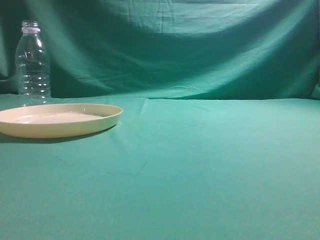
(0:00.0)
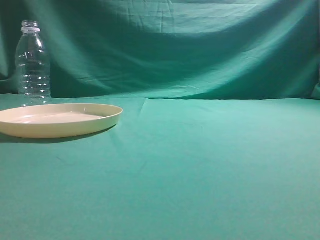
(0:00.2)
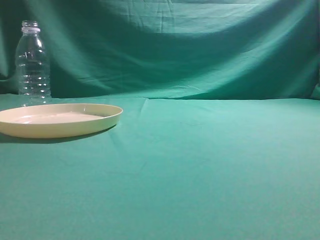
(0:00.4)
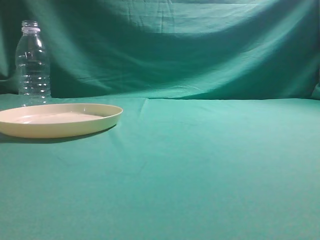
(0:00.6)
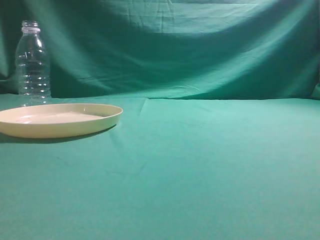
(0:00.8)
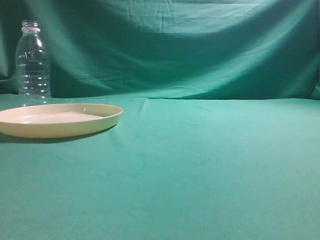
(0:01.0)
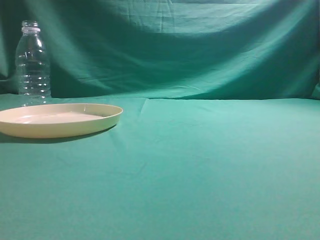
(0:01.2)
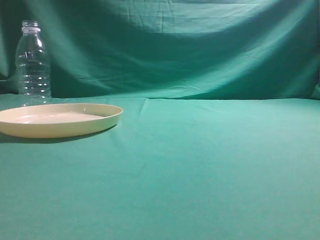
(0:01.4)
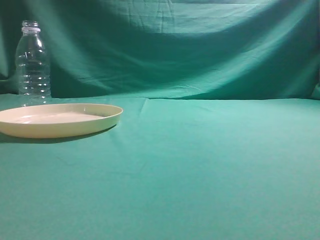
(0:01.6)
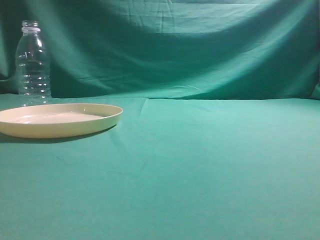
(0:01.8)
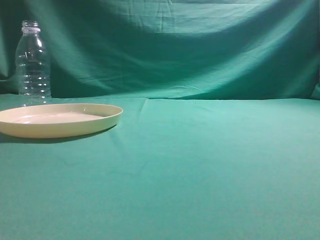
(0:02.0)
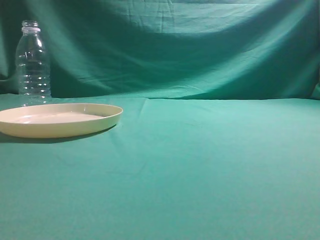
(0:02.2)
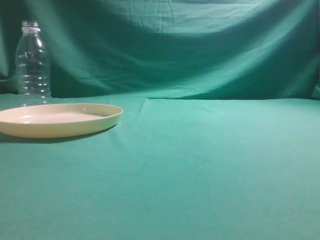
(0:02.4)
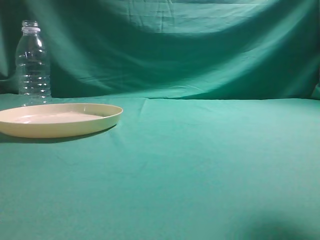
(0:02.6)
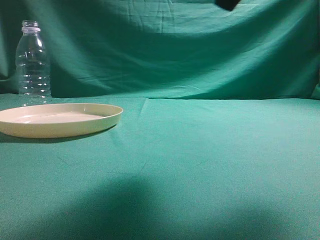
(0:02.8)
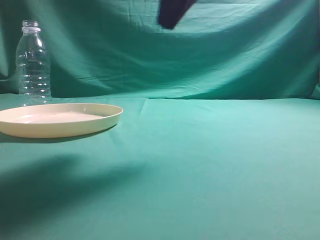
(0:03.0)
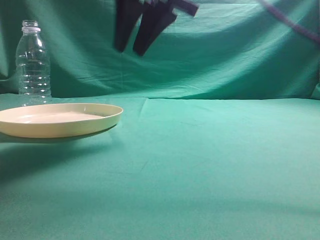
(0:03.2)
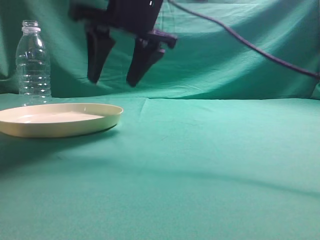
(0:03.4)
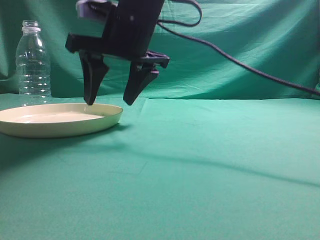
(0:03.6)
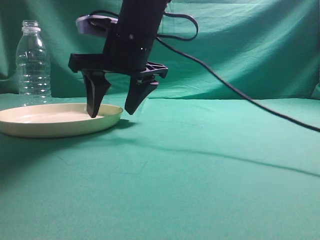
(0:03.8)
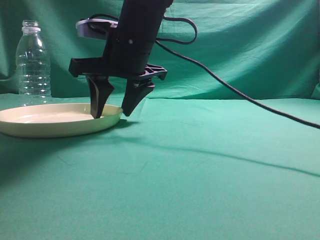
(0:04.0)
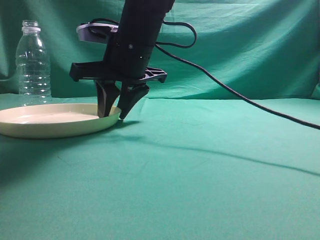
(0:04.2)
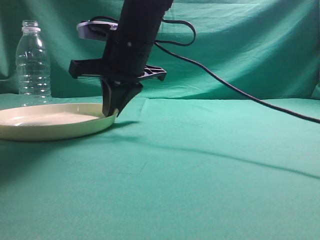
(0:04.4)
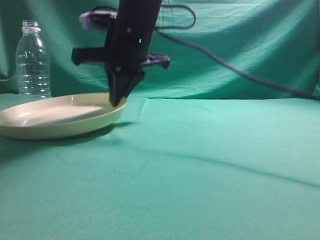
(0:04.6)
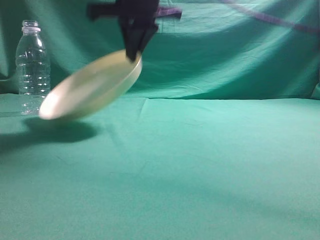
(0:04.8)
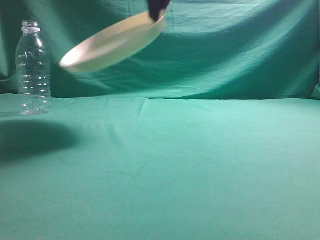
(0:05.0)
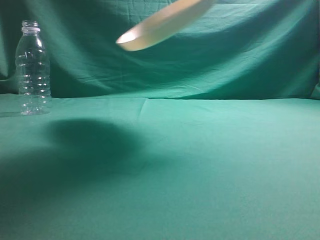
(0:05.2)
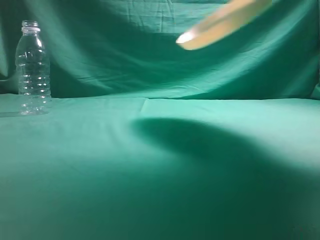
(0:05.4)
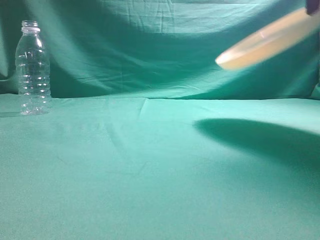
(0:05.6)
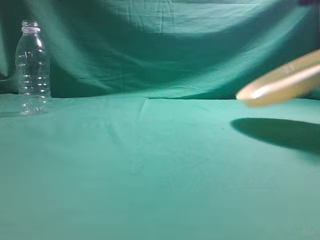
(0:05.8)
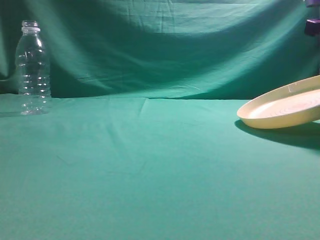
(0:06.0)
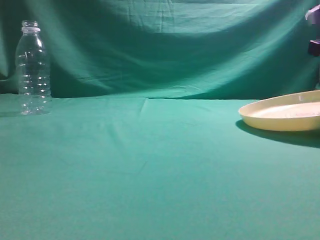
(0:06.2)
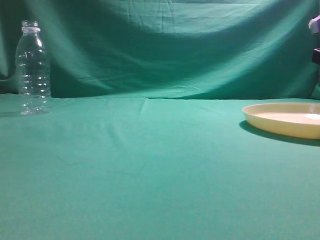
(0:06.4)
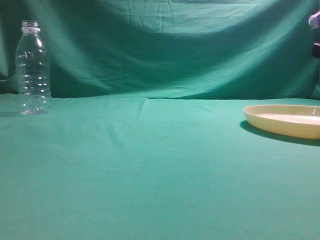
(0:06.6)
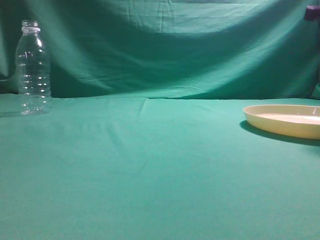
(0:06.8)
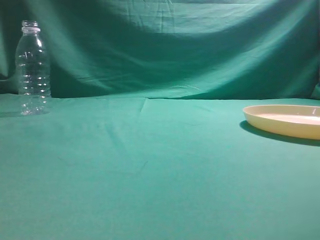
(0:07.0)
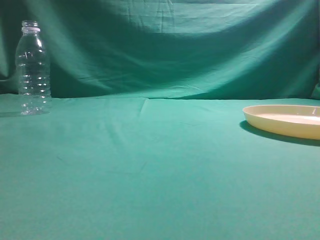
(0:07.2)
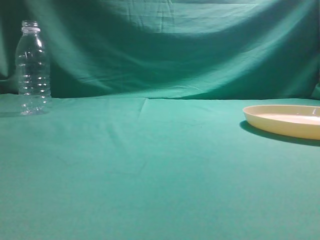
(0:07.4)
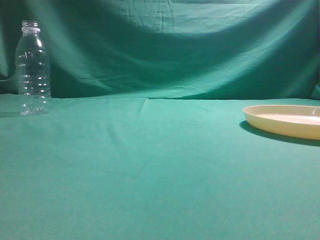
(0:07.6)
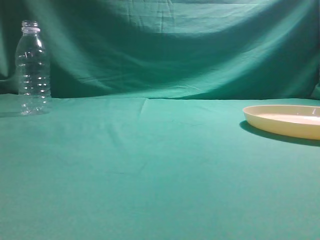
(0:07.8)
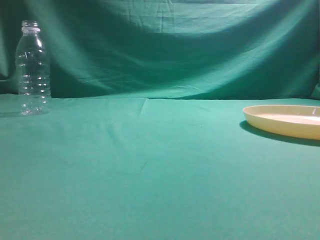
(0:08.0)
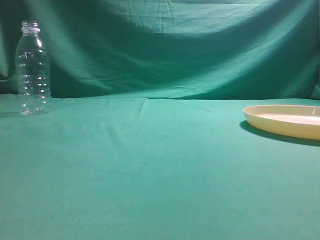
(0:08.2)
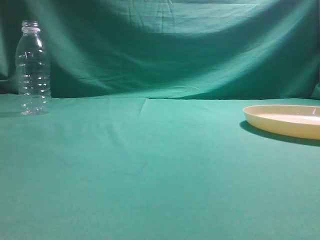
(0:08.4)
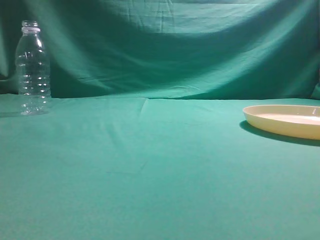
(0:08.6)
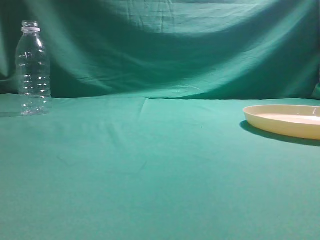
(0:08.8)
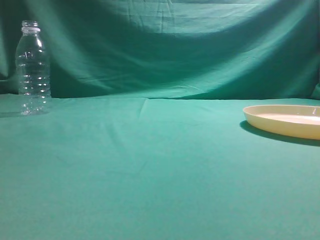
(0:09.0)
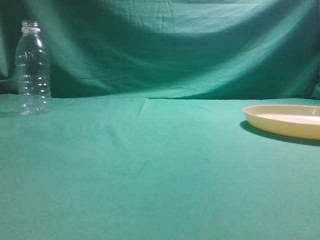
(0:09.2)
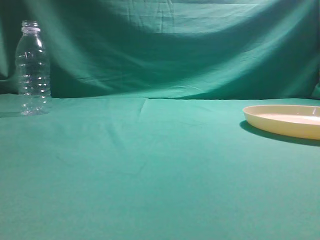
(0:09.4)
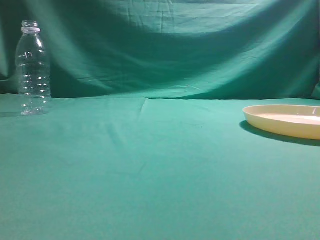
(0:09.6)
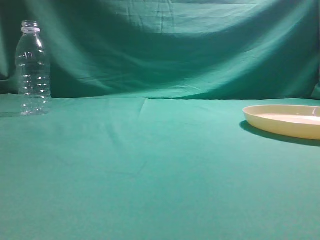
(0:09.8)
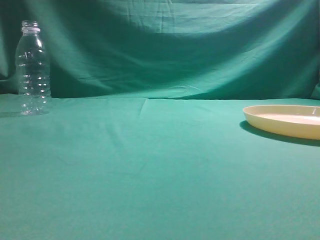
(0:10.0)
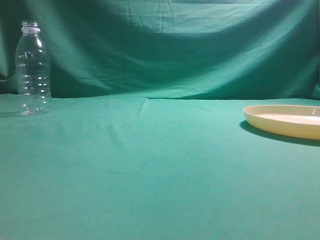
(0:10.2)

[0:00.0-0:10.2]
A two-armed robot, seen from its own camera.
Step, 0:00.0 to 0:04.8: Pick the container that can hold fruits.
Step, 0:05.0 to 0:06.8: Move the picked object to the right side of the table.
0:01.4 to 0:03.0: The right gripper shifts some 30 cm forward and to the left.
0:03.0 to 0:04.4: The right gripper is displaced downward, to the left and forward by about 20 cm, and opens, then closes once more.
0:04.4 to 0:05.8: The right gripper goes about 35 cm to the right and upward.
0:05.8 to 0:07.2: The right gripper shifts roughly 5 cm upward, and opens and closes again.

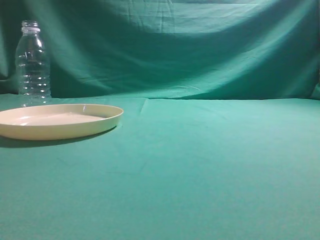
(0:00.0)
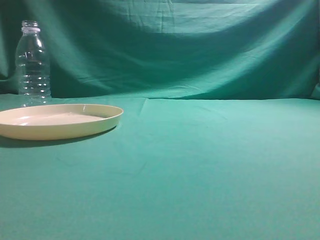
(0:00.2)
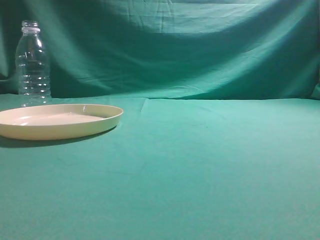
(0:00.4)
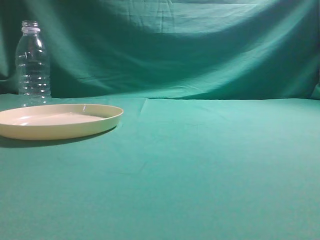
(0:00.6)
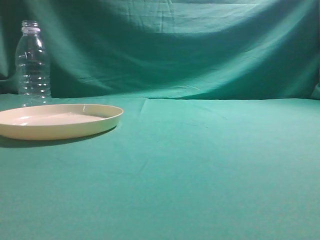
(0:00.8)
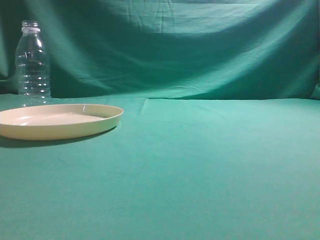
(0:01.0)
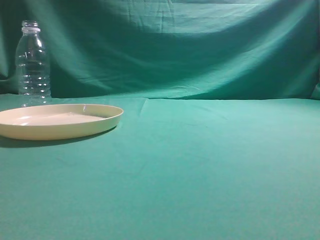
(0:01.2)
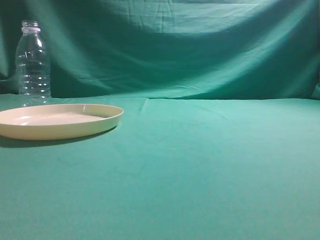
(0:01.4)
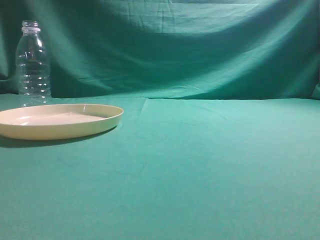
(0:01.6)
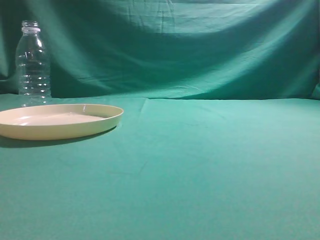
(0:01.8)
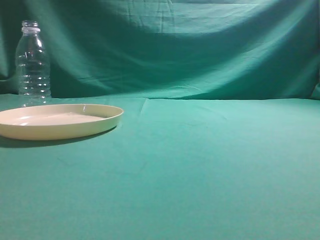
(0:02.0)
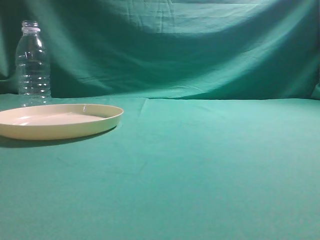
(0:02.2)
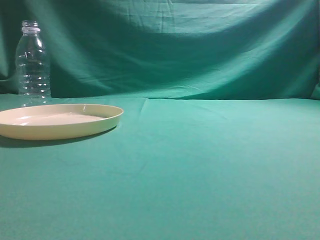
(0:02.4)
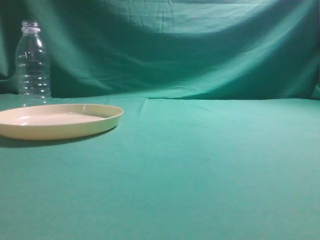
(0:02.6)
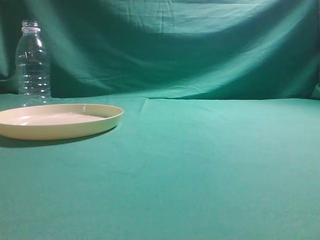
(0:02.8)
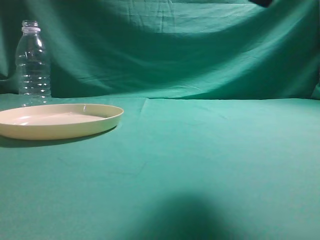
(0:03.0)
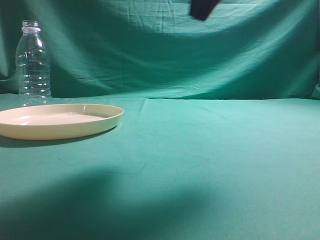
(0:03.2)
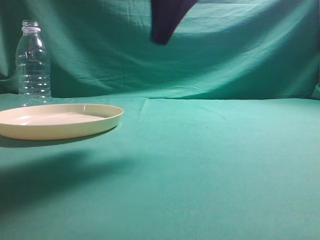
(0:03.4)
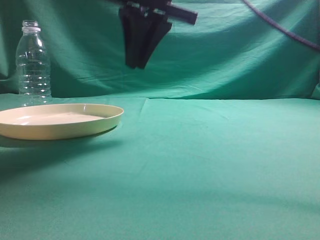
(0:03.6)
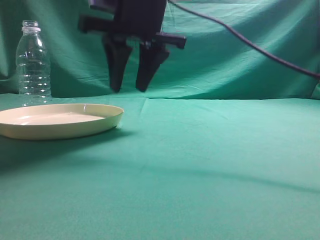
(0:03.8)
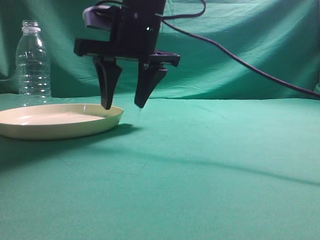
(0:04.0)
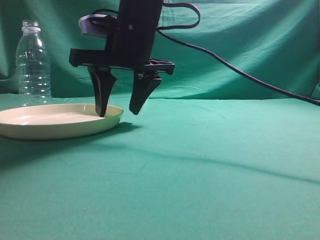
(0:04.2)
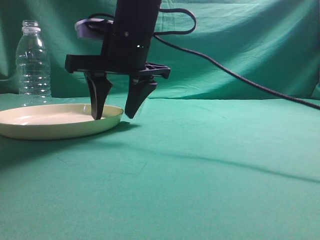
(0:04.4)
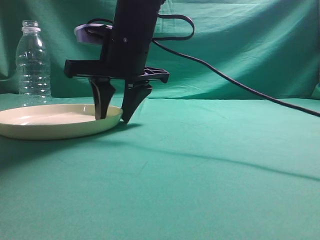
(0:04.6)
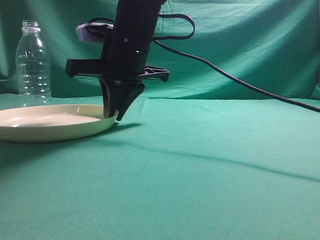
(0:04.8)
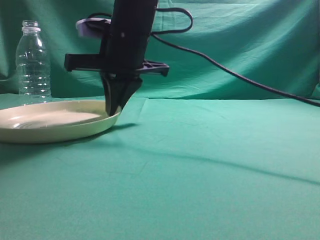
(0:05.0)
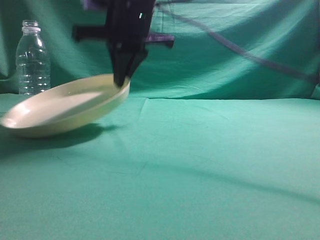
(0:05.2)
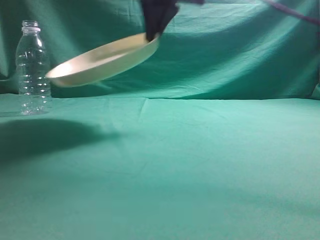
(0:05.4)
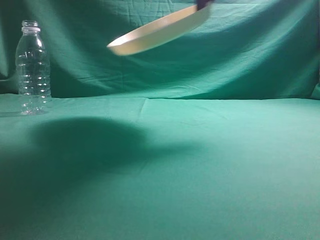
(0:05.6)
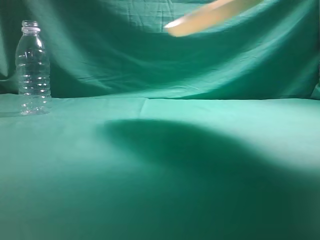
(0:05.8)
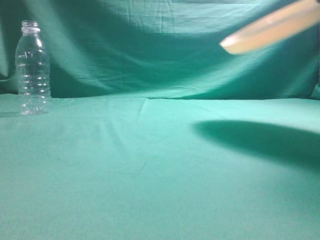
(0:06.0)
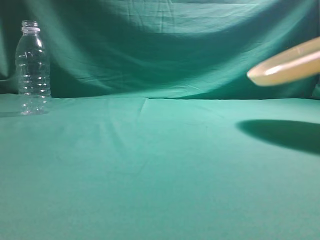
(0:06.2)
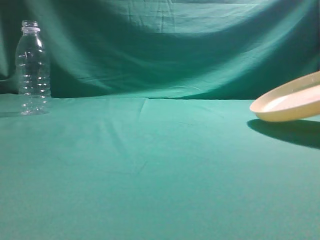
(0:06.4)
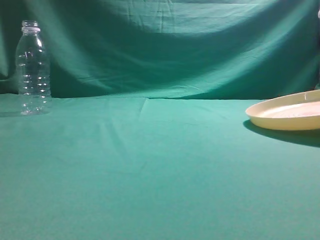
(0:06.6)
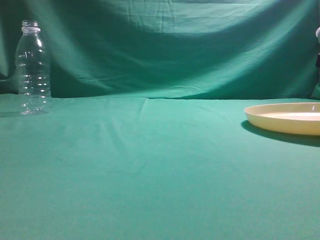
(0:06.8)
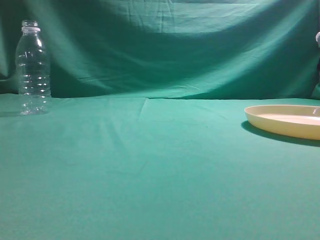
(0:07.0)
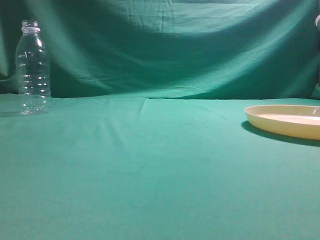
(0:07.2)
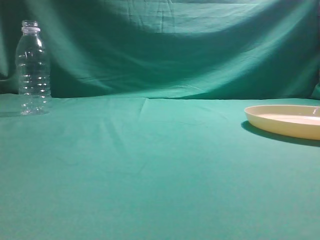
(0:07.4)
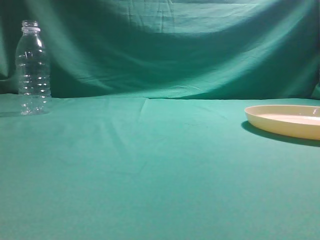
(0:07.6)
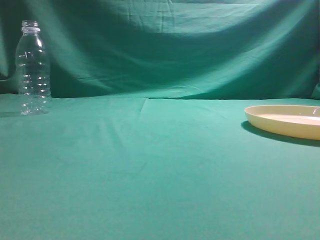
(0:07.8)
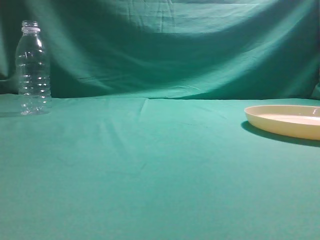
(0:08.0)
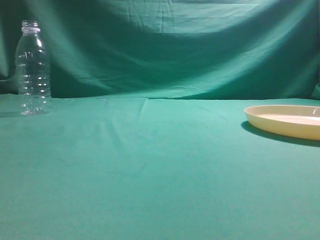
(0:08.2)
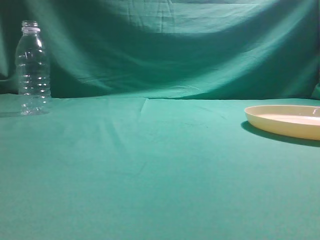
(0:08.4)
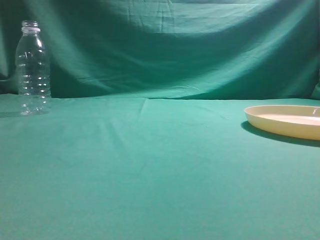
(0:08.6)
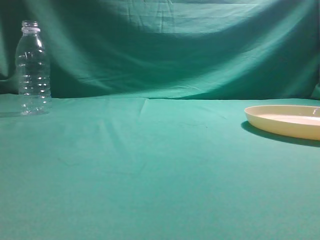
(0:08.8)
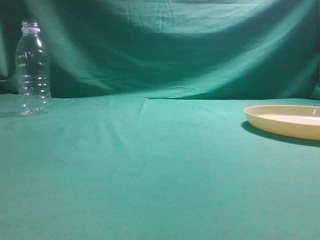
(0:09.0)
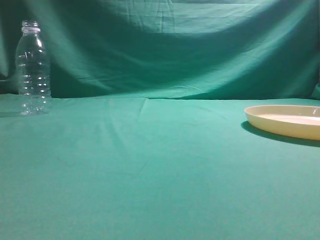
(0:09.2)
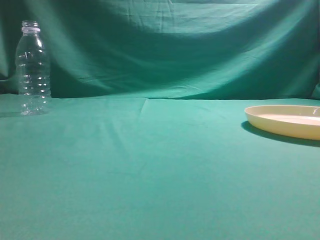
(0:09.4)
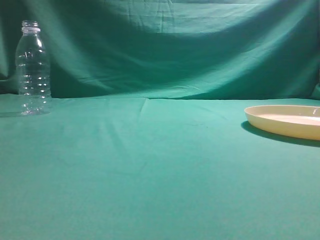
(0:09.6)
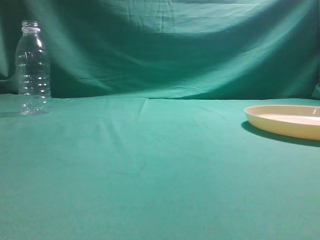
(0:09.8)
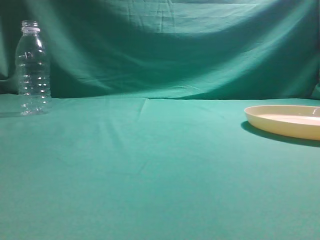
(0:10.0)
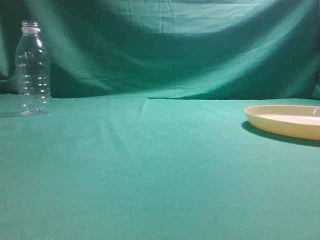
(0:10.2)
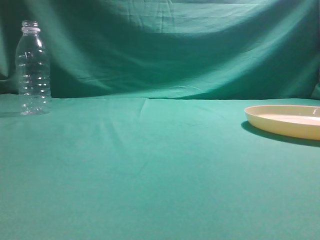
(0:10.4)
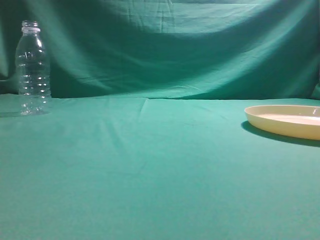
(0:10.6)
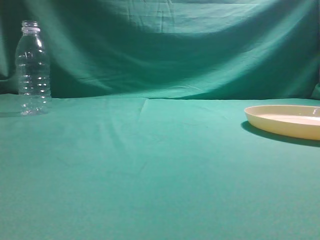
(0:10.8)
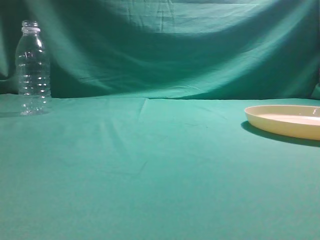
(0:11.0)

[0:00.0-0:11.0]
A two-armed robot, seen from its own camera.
Step, 0:00.0 to 0:05.2: Pick the container that can hold fruits.
Step, 0:05.4 to 0:07.4: Move the picked object to the right side of the table.
0:01.6 to 0:03.2: The right gripper moves forward and to the left, roughly 25 cm.
0:03.2 to 0:04.8: The right gripper heads to the left, downward and forward, covering about 25 cm, and opens its fingers.
0:04.8 to 0:06.2: The right gripper heads to the right and upward, covering approximately 35 cm, and closes up.
0:06.2 to 0:07.8: The right gripper moves backward, some 5 cm, travels downward and back again, approximately 15 cm each way, and opens and closes again.
